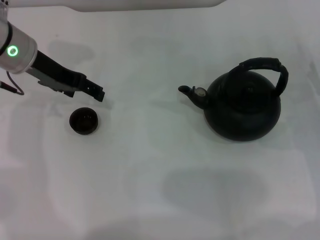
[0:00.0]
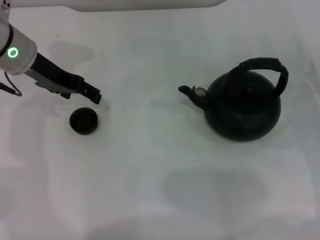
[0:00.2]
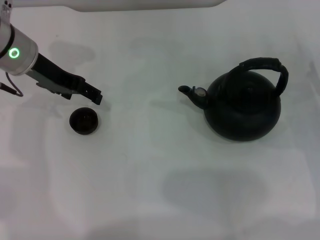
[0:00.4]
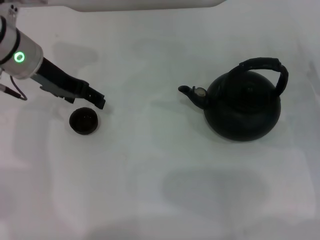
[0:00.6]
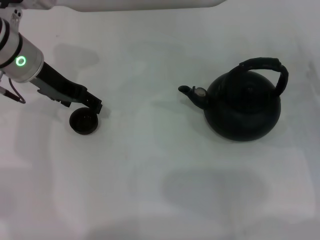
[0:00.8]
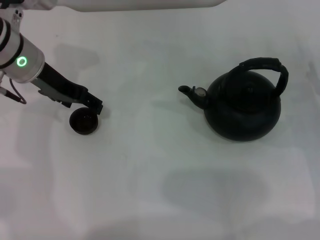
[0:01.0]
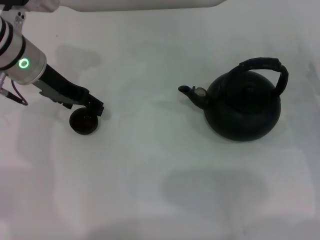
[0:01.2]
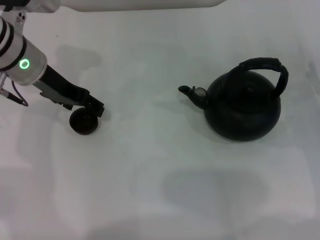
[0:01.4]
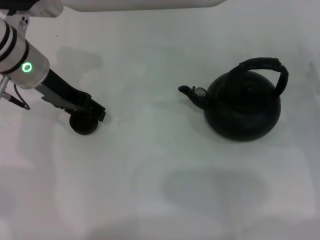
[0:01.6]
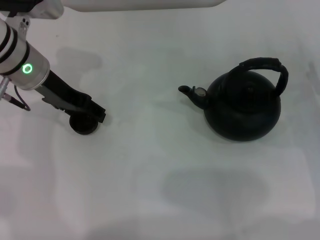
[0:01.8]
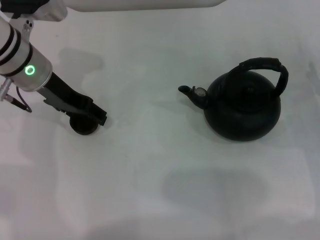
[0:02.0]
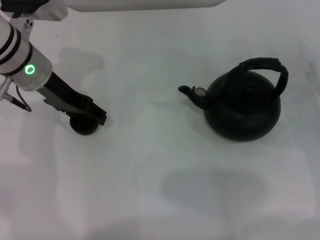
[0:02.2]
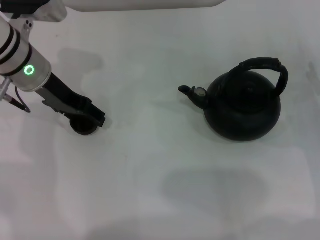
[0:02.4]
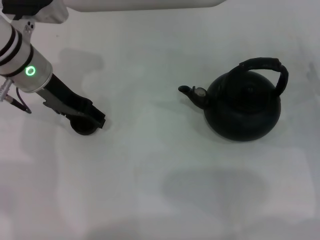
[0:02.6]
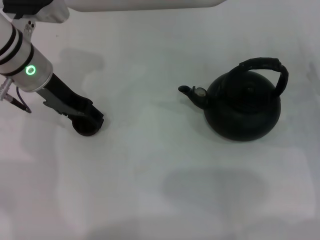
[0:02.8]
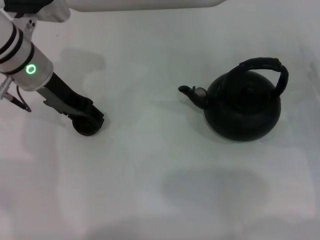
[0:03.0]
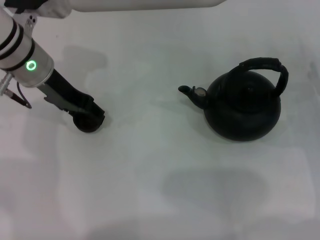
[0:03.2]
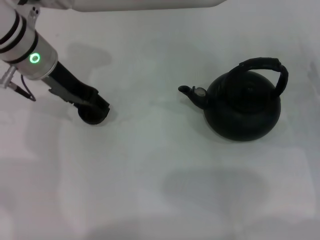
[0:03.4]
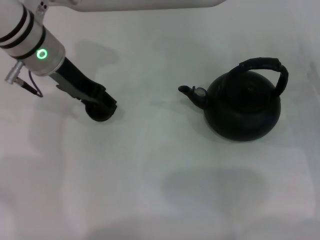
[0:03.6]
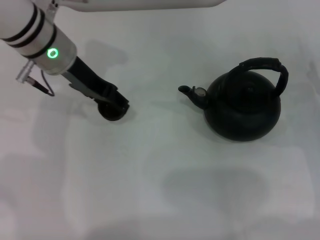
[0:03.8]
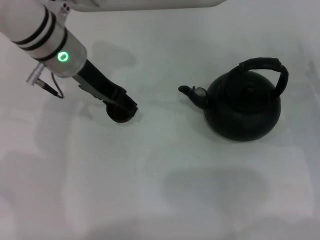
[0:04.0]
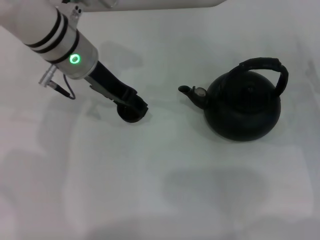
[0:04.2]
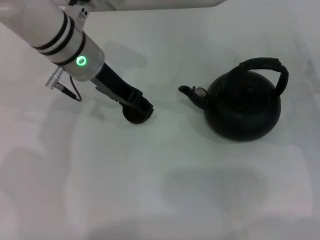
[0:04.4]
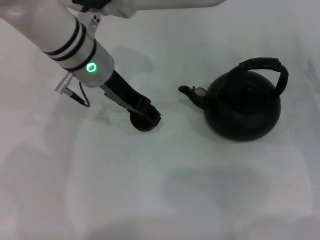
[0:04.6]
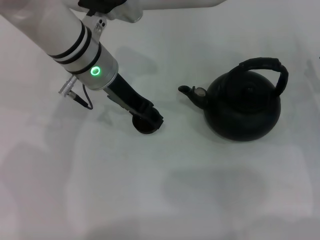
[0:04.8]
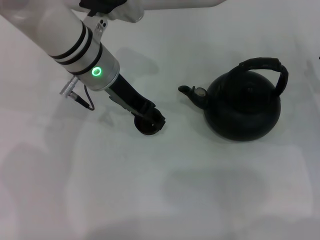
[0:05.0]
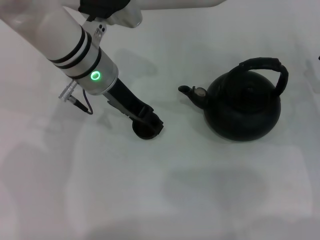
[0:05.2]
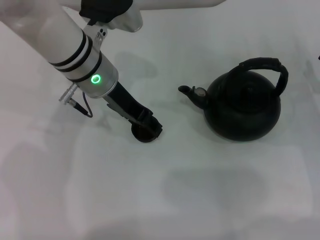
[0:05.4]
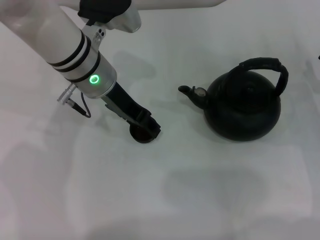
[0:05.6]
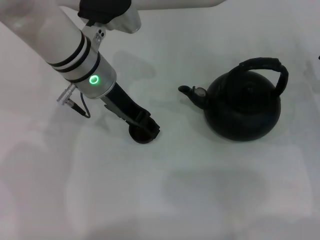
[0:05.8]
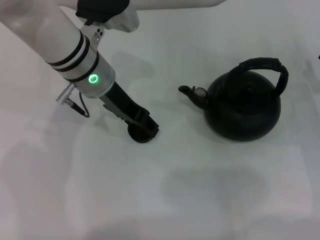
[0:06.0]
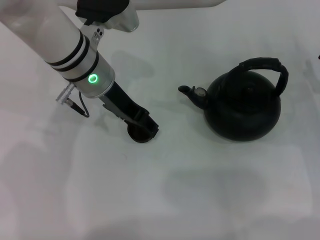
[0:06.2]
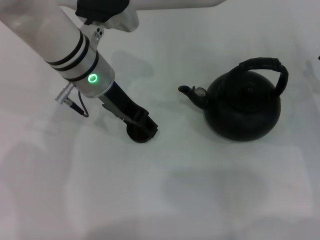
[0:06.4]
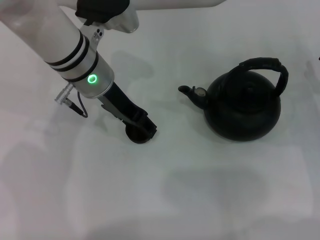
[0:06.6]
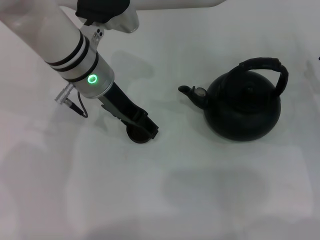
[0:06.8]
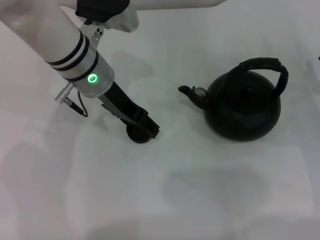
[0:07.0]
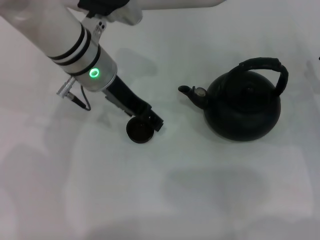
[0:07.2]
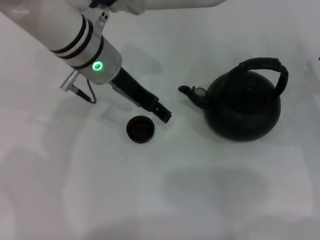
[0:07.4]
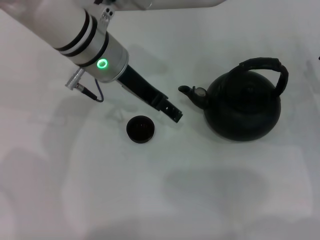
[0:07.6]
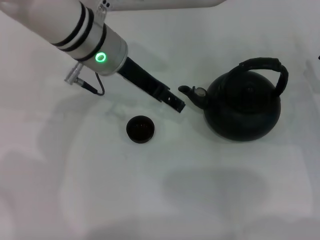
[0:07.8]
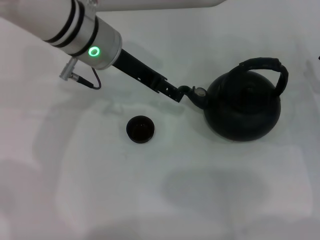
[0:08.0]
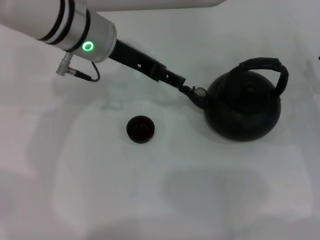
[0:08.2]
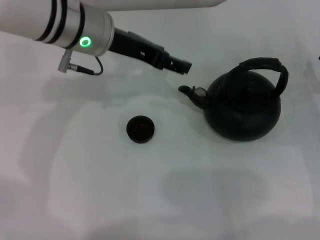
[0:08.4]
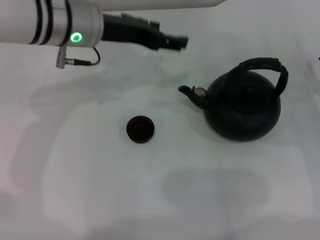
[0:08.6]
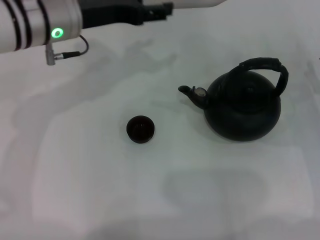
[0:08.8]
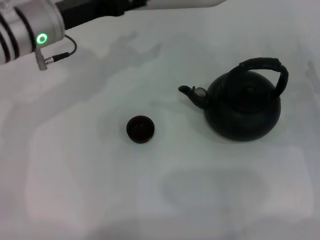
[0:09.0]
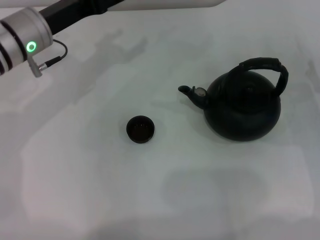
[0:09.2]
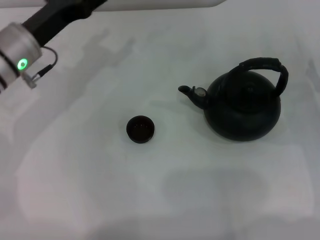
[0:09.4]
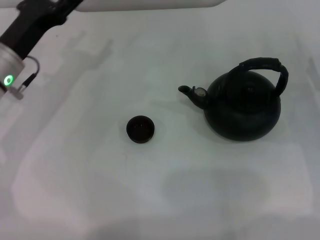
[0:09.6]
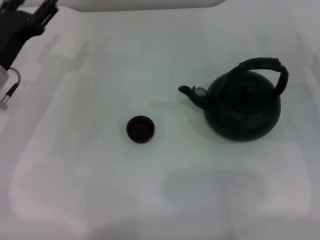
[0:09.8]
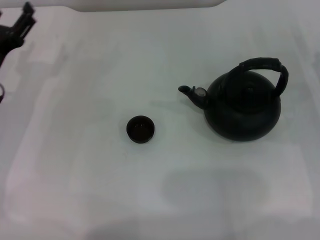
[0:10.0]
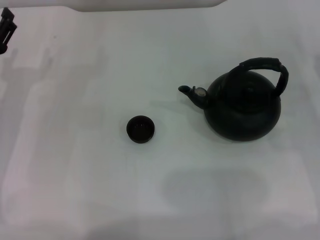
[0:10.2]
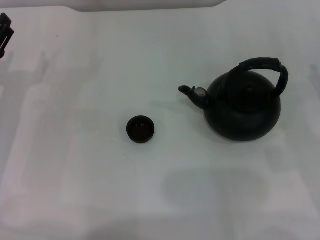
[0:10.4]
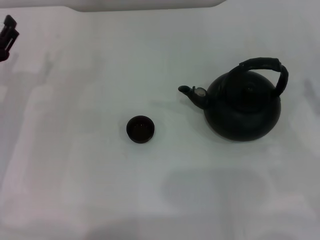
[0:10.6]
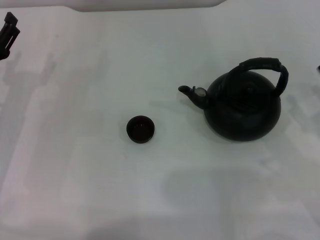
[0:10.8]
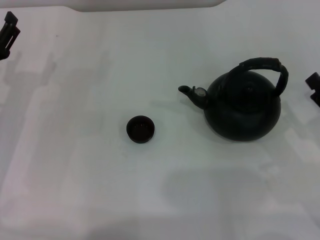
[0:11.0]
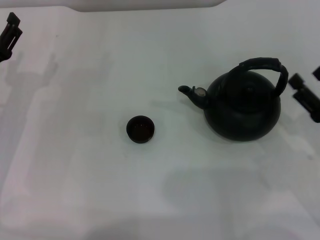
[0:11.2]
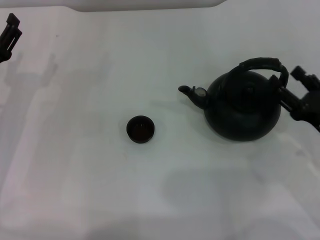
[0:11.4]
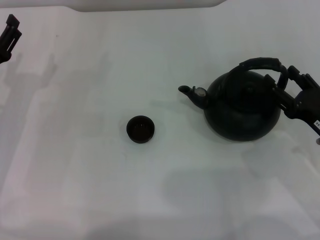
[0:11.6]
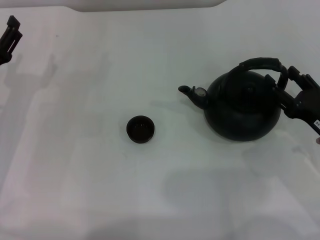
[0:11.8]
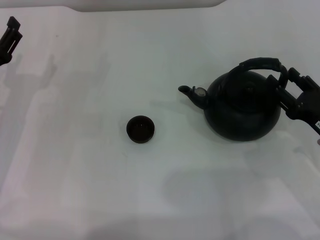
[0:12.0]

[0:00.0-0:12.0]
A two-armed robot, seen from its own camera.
Task of the whole recording: Grasp the handle of the teapot with one hand and pour tea into the teacup.
Step, 0:00.0 to 0:03.4: Pick up the teacup with the left gripper.
Step, 0:03.6 to 0:07.4: Place the teacup in the center of view with the left gripper.
0:00.0 to 0:01.6: The grippers move only a little.
0:01.6 to 0:03.0: The left gripper closes its fingers.
0:03.0 to 0:04.4: The left gripper is displaced to the right by some 5 cm.
0:04.4 to 0:06.0: The grippers stay close to where they were, moving slightly.
0:06.0 to 0:07.6: The left gripper opens its fingers.
0:07.6 to 0:09.0: The left gripper shifts some 10 cm to the left.
0:09.0 to 0:10.4: The left gripper is displaced to the left, downward and backward by approximately 20 cm.
0:10.4 to 0:12.0: The right gripper shifts by approximately 5 cm.

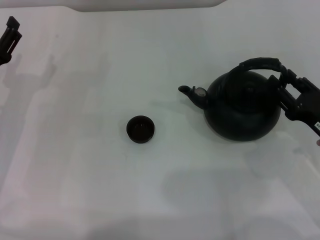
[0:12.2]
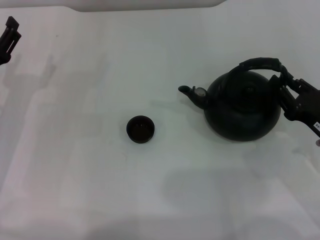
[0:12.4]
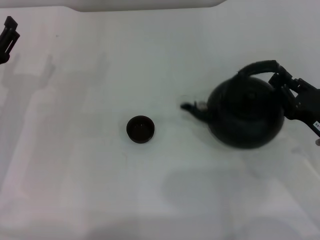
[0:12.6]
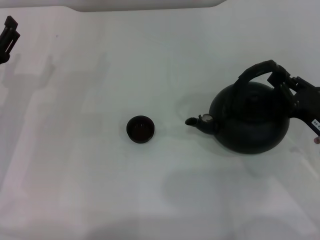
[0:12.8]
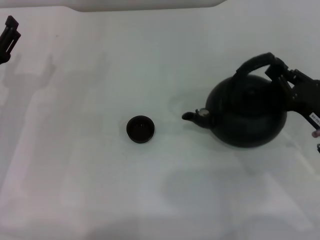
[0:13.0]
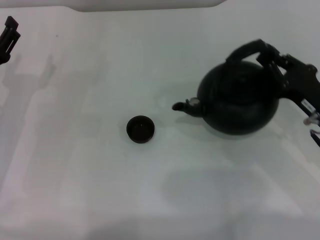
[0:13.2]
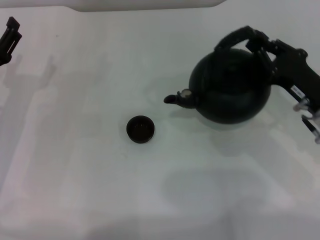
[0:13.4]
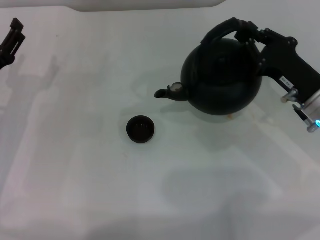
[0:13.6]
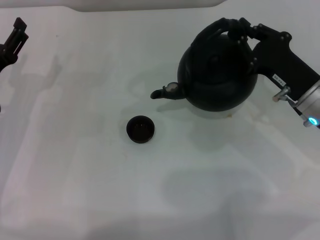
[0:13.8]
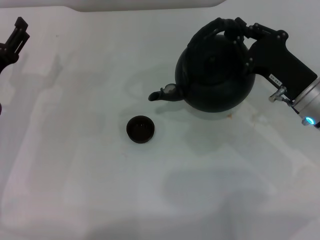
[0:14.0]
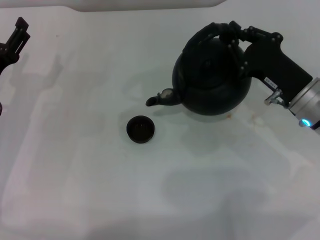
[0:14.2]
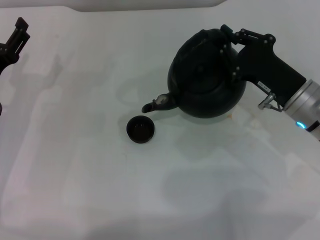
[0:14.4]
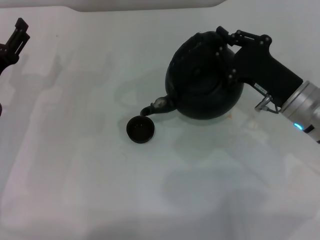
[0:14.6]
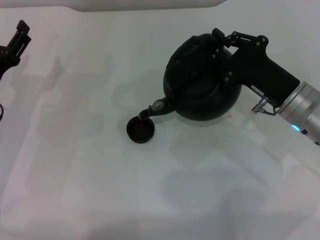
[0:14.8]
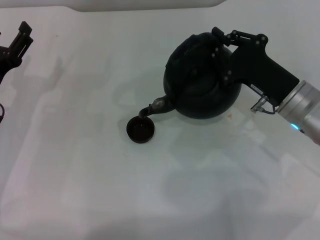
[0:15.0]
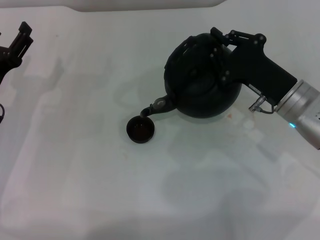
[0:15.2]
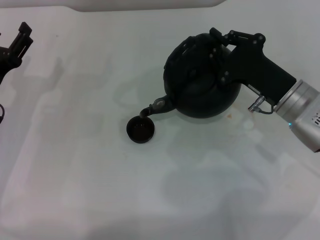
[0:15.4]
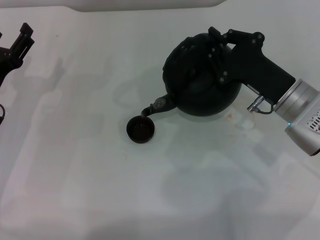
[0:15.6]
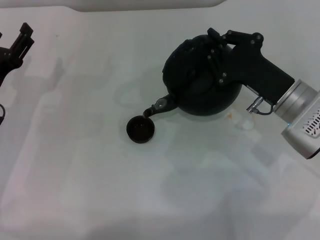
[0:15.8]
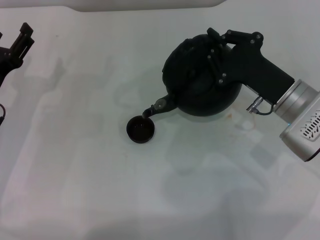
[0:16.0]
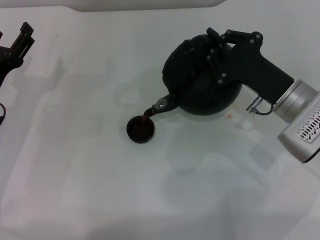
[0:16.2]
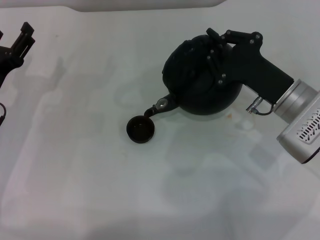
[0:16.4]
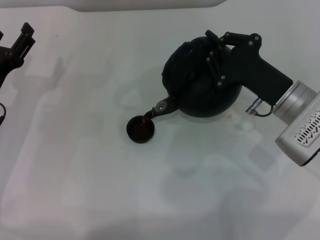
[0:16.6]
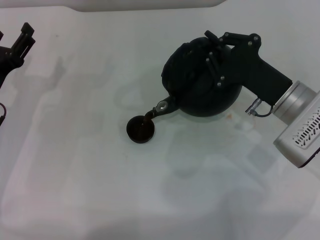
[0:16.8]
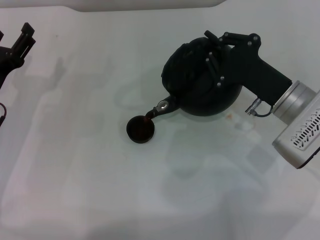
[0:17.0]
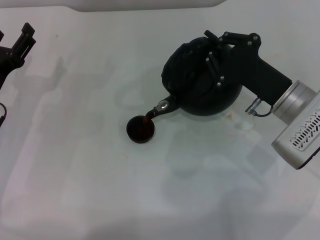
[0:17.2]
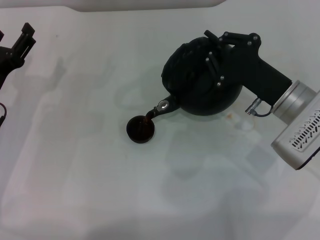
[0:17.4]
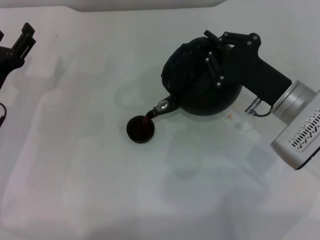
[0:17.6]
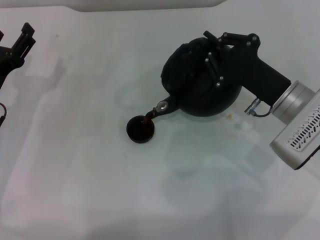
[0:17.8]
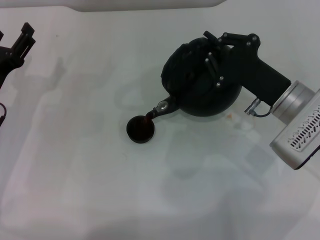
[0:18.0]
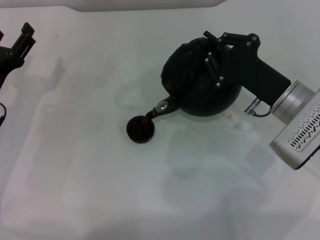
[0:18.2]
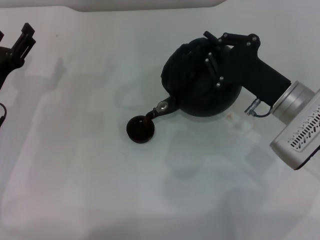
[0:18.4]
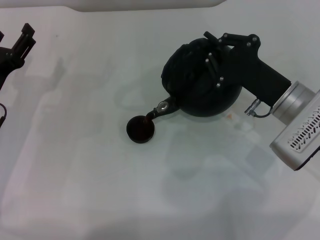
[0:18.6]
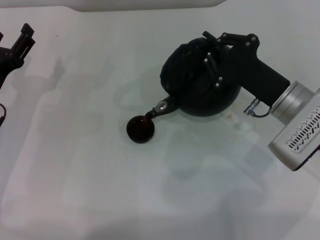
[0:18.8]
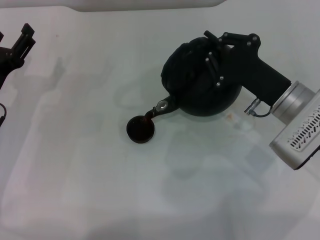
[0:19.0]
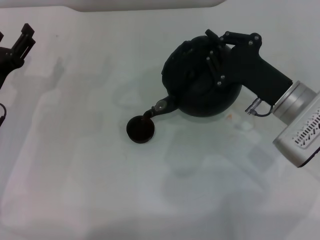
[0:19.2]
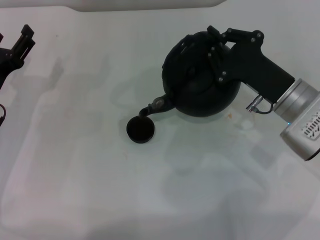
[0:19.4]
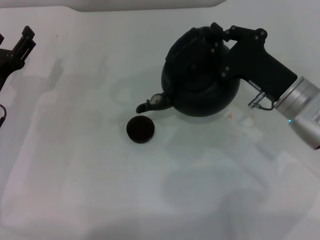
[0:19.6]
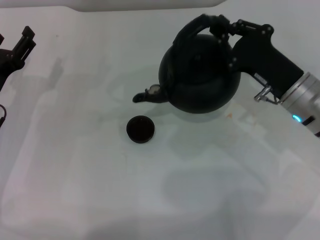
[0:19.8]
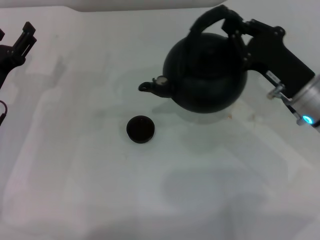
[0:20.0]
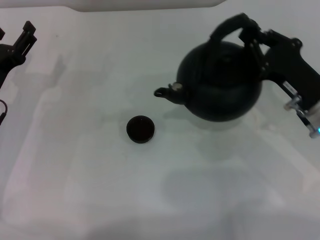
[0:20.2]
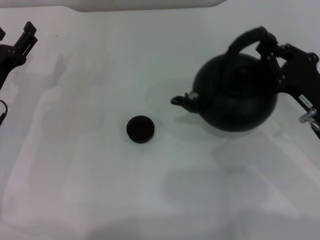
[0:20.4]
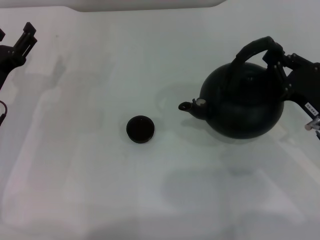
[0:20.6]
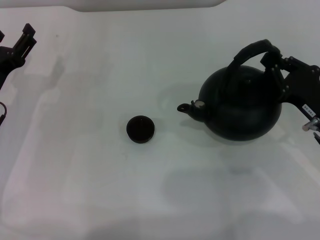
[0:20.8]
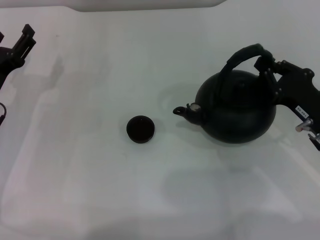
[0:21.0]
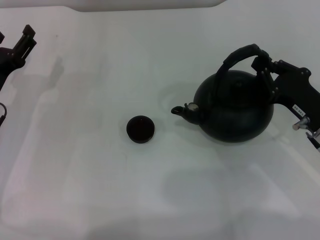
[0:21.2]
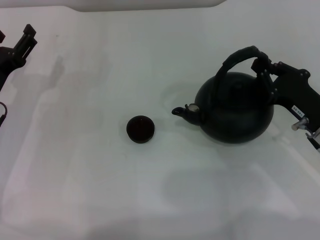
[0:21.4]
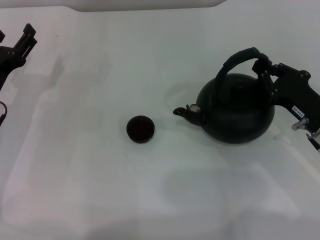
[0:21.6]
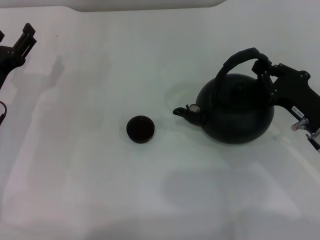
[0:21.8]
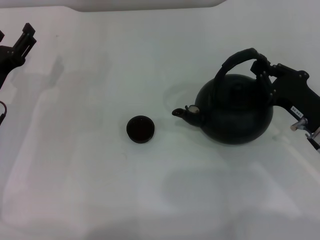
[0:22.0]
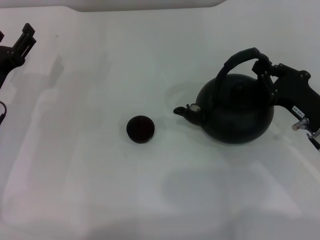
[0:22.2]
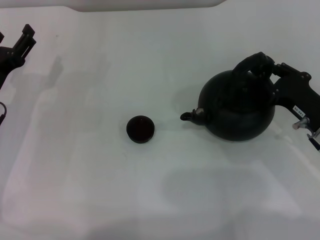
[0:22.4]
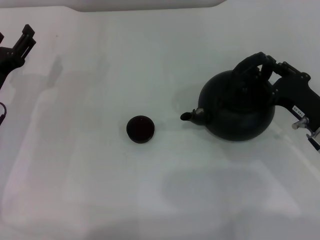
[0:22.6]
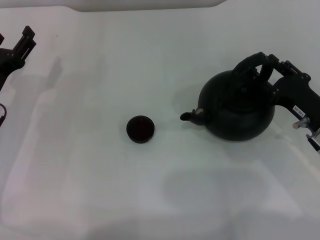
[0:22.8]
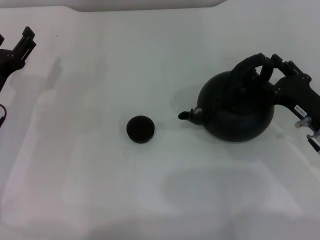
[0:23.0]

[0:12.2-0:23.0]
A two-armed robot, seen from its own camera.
Task of the whole recording: Grasp the handle of the teapot with one hand and pour tea into the teacup.
Step, 0:13.6 to 0:20.0: Pour tea into the teacup with the right gripper.
0:12.2 to 0:13.8: The right gripper moves forward and to the left, roughly 10 cm, and closes.
0:13.8 to 0:15.2: The grippers stay close to where they were, moving slightly.
0:15.2 to 0:16.8: The grippers move only a little.
0:16.8 to 0:18.4: Both grippers stay about where they are.
0:20.0 to 0:21.4: The right gripper changes place by about 5 cm.
0:21.4 to 0:23.0: The right gripper opens its fingers.
